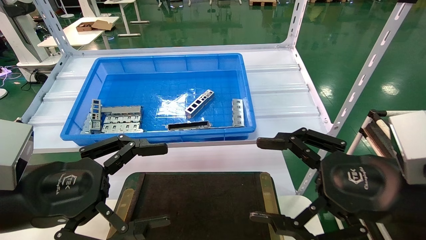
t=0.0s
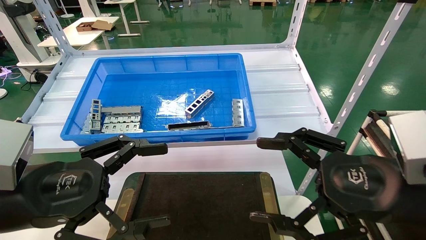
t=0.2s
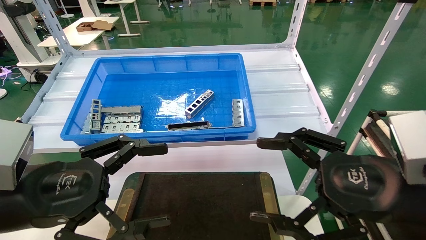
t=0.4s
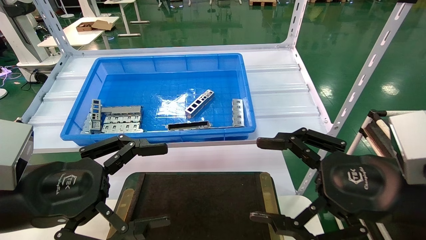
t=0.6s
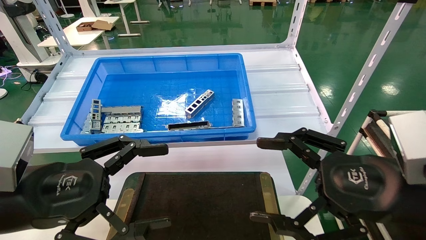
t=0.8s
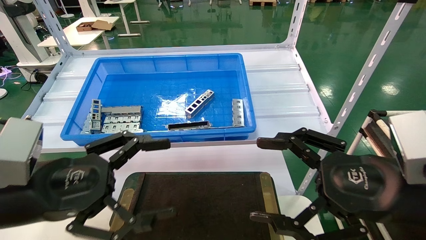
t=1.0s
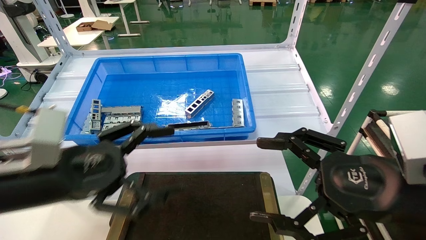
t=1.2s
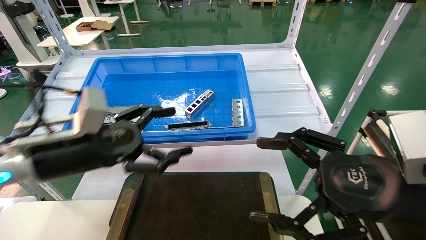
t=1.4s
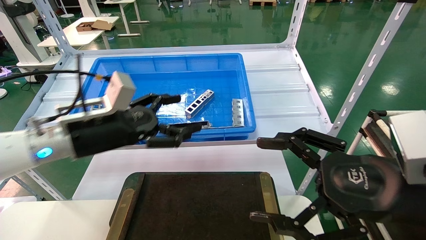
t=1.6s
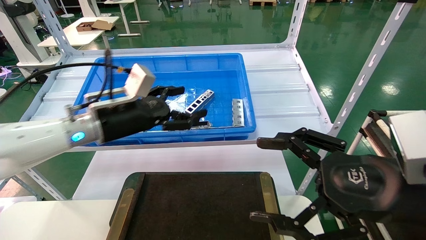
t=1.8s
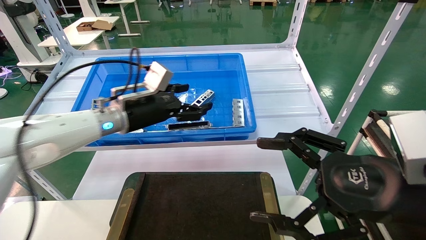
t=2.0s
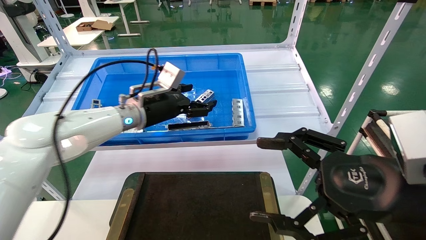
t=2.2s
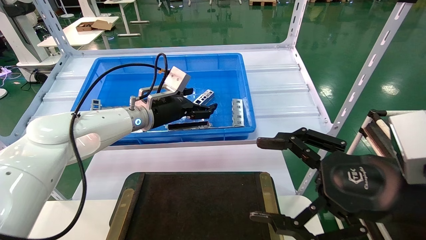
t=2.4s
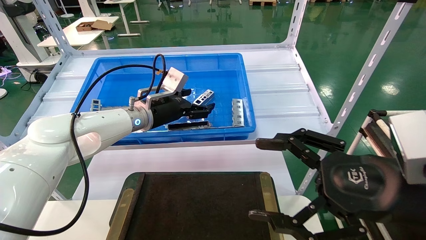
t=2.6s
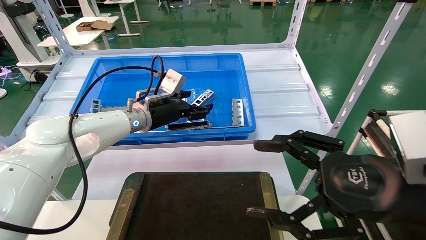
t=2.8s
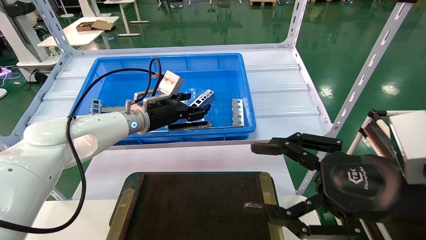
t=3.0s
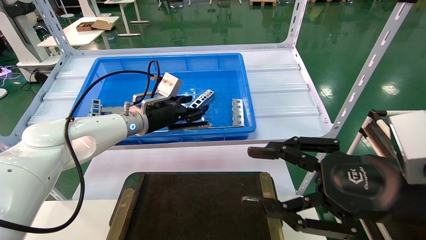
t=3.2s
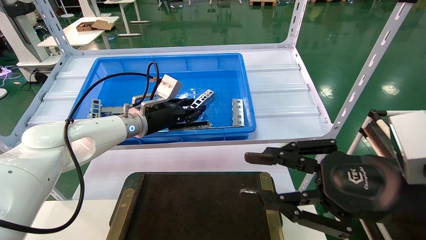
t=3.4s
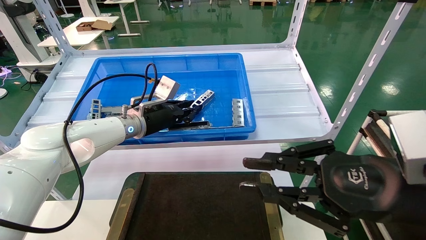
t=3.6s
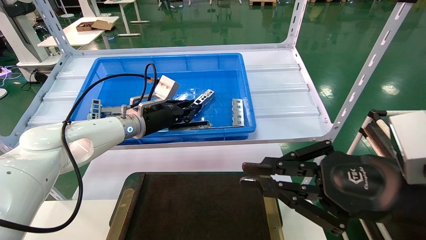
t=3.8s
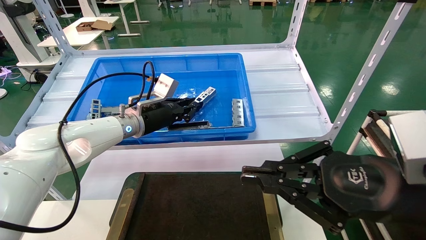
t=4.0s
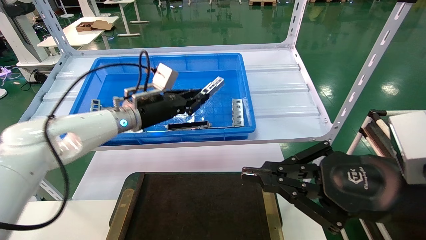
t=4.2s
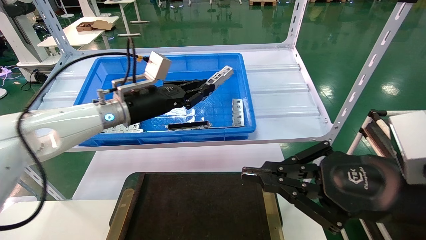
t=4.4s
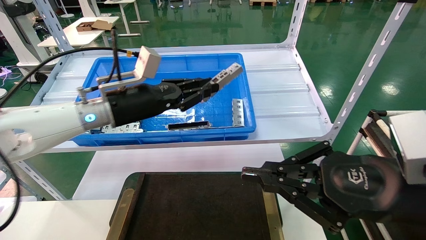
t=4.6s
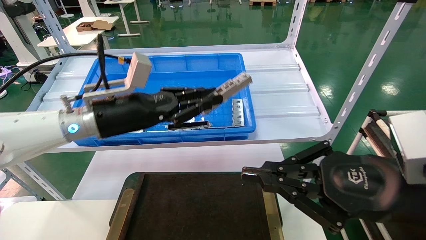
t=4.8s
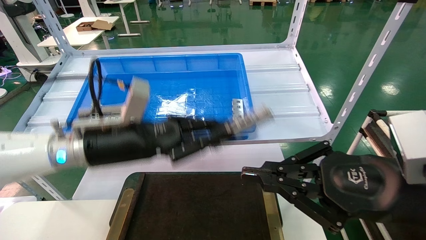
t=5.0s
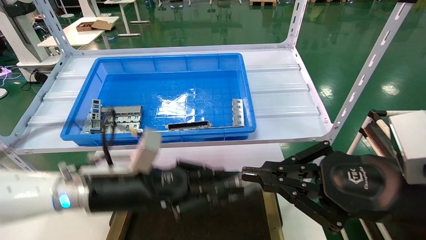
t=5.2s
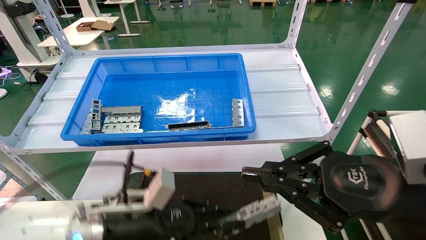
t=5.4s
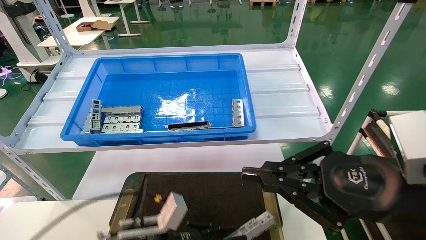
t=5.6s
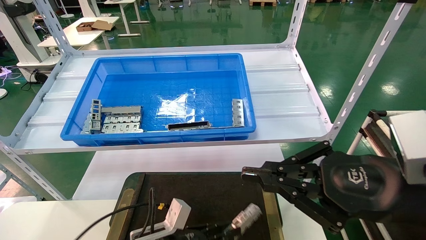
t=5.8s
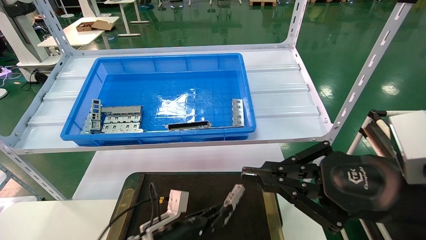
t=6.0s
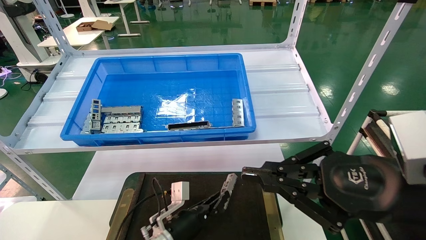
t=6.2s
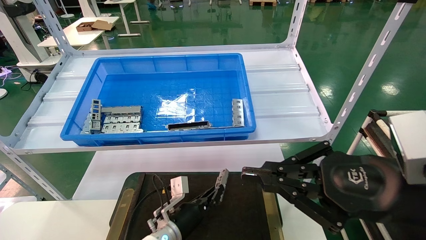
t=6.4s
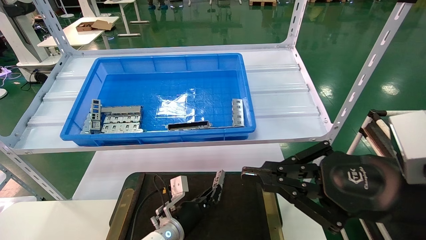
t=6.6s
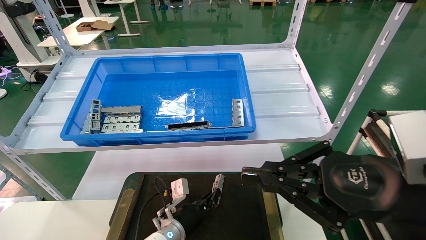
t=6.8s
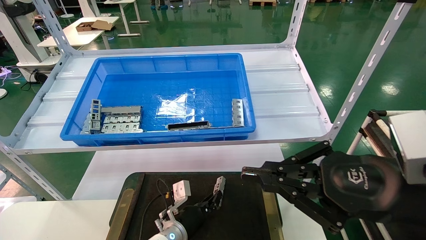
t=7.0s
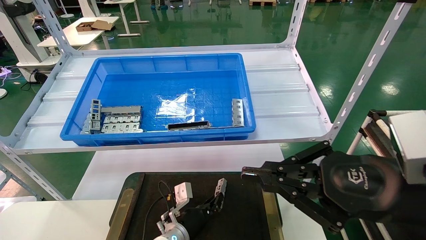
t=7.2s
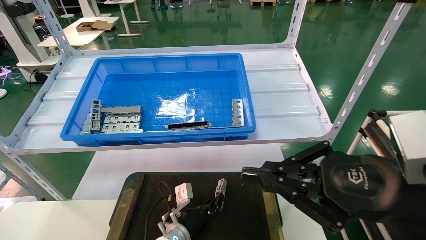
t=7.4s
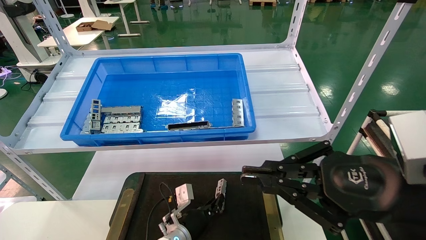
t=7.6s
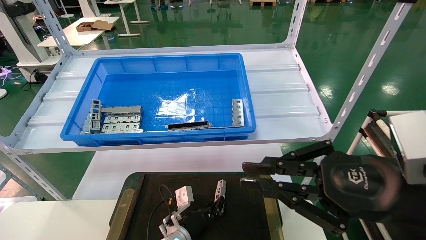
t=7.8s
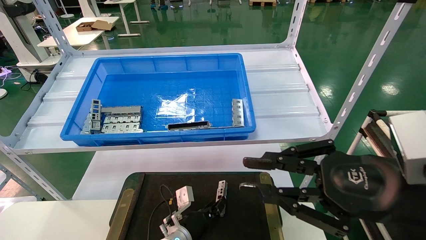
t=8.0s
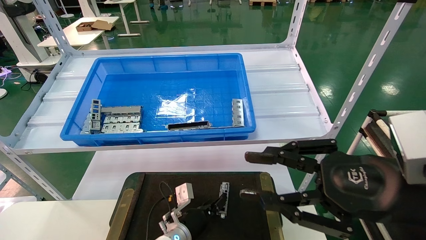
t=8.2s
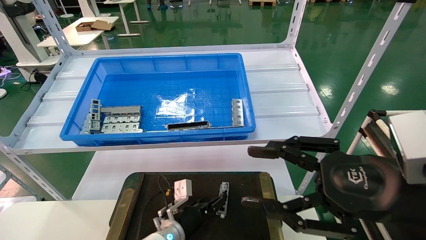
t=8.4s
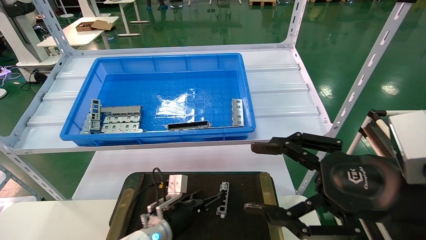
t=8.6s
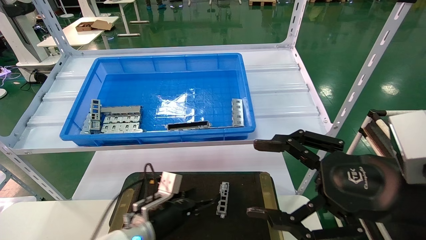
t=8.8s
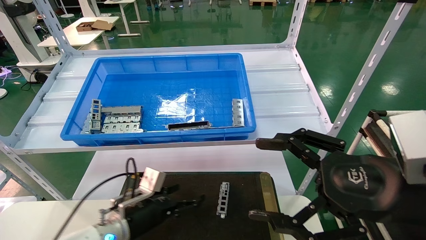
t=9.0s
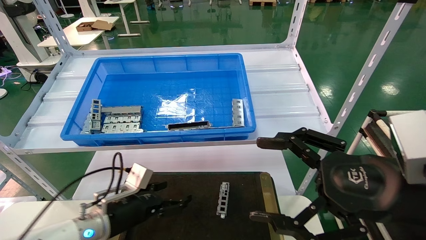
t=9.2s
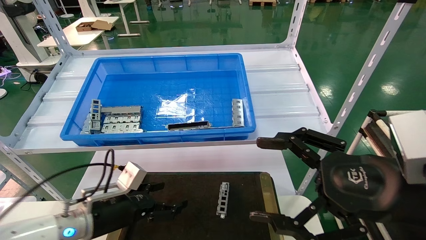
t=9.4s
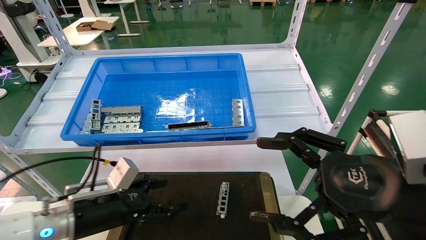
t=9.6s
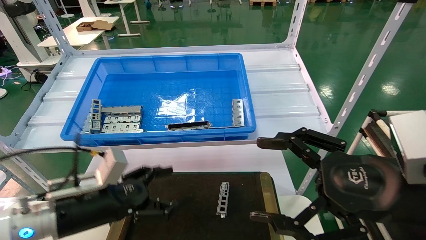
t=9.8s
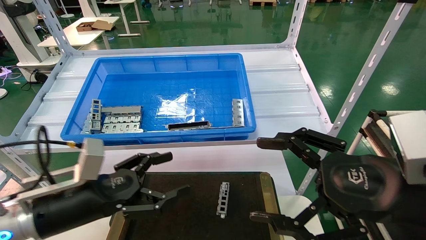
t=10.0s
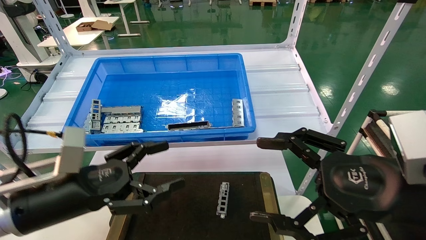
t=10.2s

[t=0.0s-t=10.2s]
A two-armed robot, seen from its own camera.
Task of the whole recording: Grasp the part with one hand and place it on the black container.
Step, t=1.2s to t=3.6s: Pick up the front USB bracket from the feeding area.
Step, t=3.8s to t=7.8s: Place the front USB bracket into the box.
t=0.0s to t=1.4s: The left gripper travels forward by about 10 cm.
t=1.4s to t=3.0s: The left gripper heads forward, covering some 20 cm.
t=3.0s to t=4.4s: The right gripper closes. Meanwhile the left gripper shifts about 5 cm backward, and closes.
t=4.4s to t=5.8s: The left gripper travels downward and backward by approximately 30 cm.
t=5.8s to t=7.2s: The left gripper goes approximately 15 cm forward, downward and to the right.
t=7.2s to t=8.8s: The right gripper opens up. Meanwhile the left gripper moves to the left and upward, about 10 cm, and opens.
t=8.8s to t=10.2s: The left gripper moves upward, backward and to the left, some 20 cm.

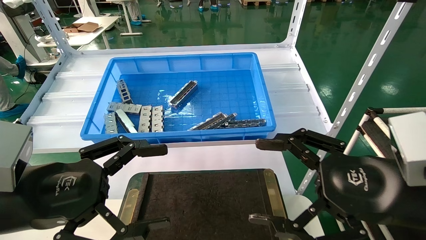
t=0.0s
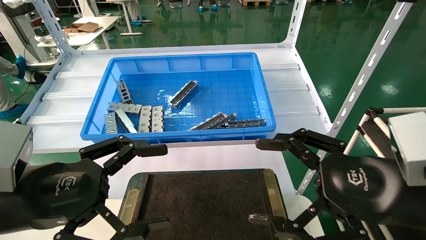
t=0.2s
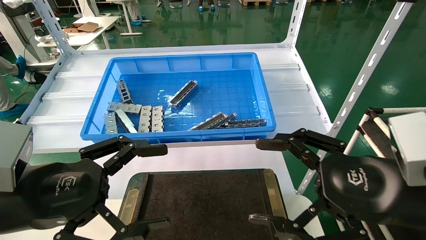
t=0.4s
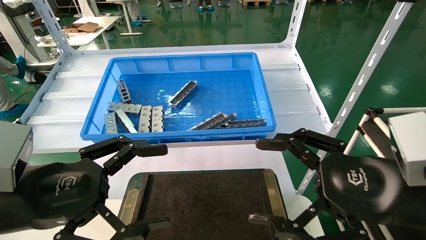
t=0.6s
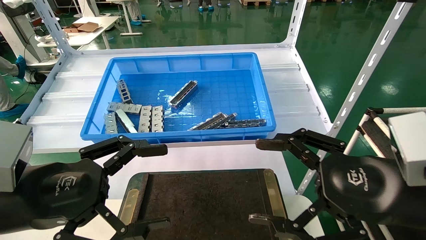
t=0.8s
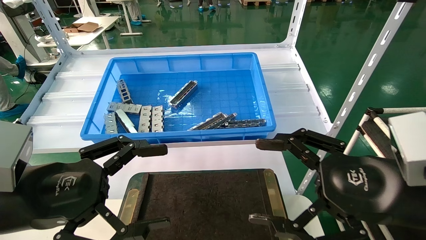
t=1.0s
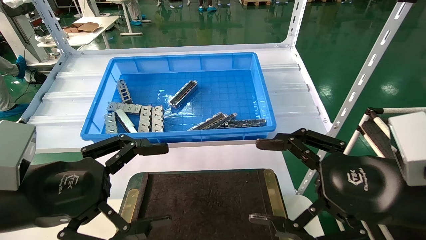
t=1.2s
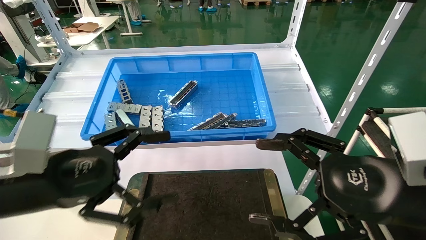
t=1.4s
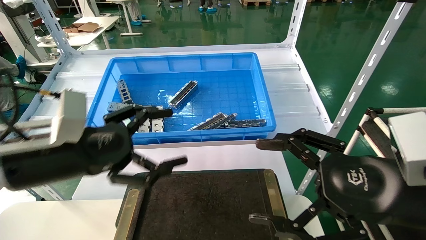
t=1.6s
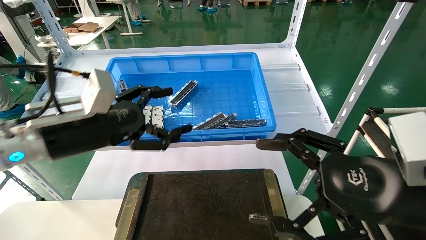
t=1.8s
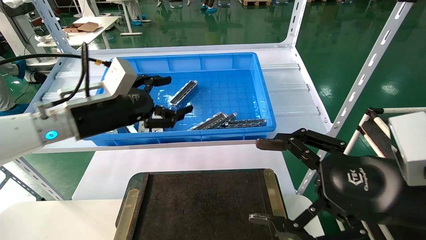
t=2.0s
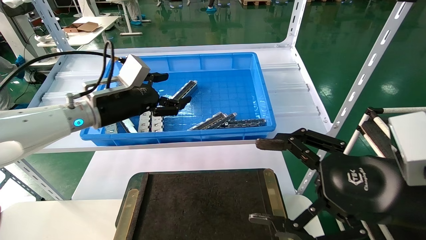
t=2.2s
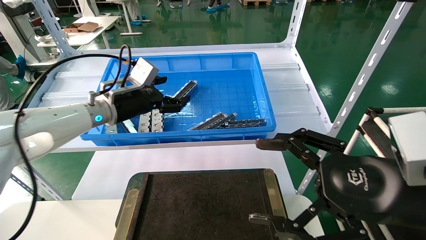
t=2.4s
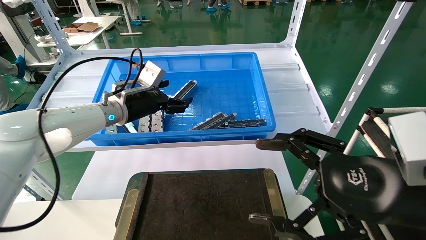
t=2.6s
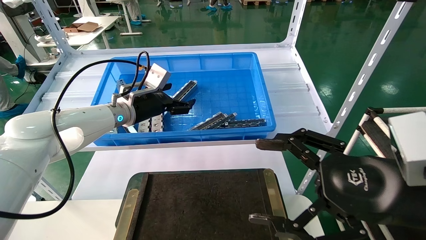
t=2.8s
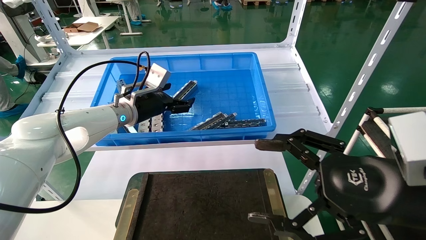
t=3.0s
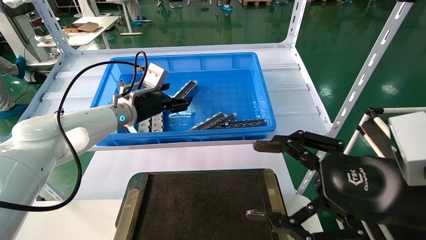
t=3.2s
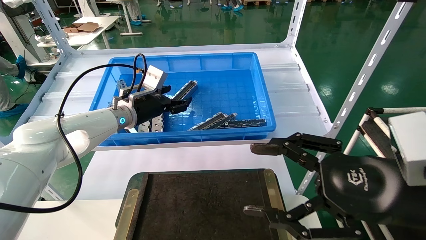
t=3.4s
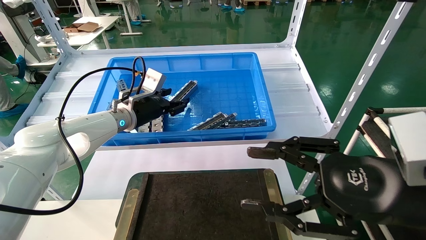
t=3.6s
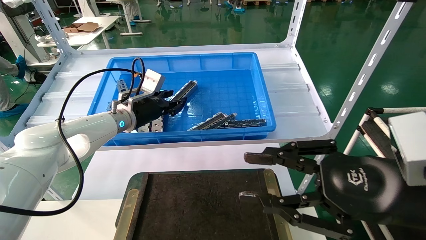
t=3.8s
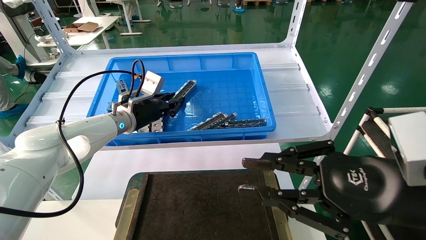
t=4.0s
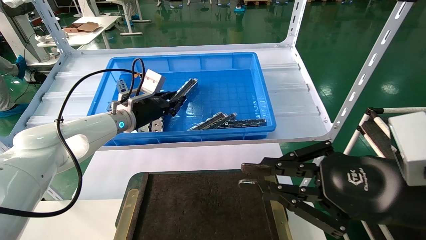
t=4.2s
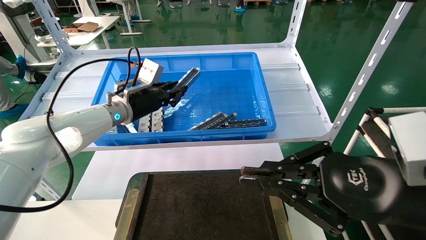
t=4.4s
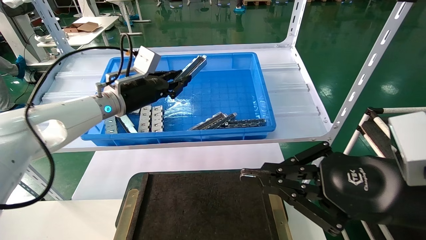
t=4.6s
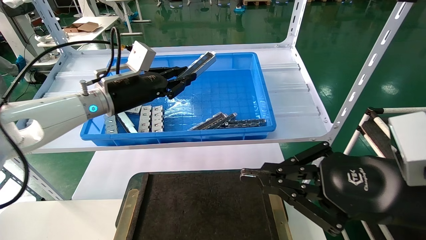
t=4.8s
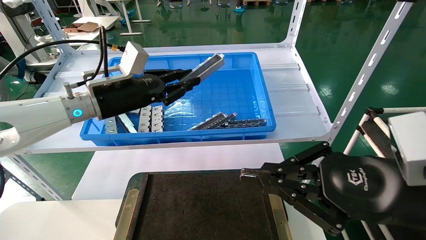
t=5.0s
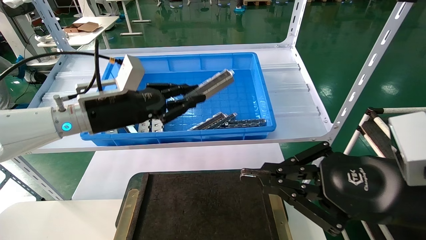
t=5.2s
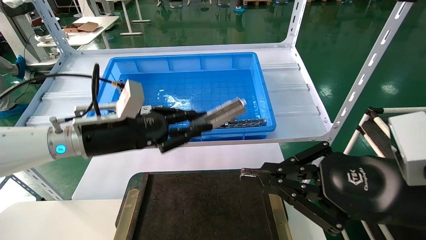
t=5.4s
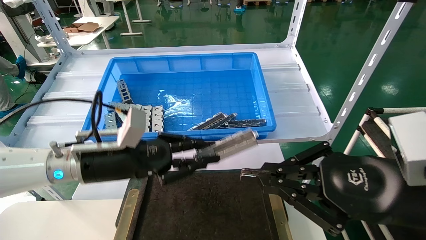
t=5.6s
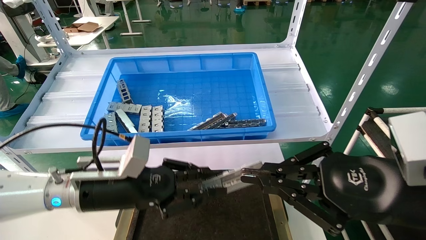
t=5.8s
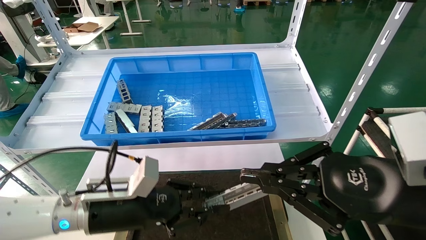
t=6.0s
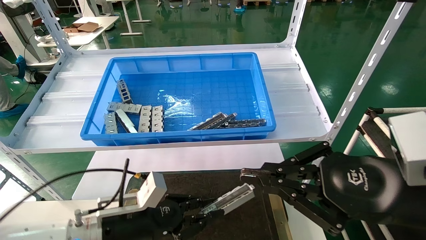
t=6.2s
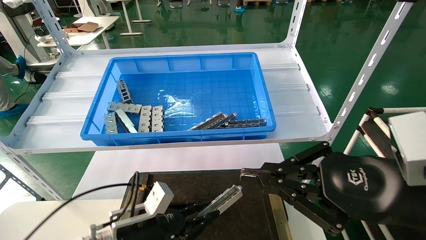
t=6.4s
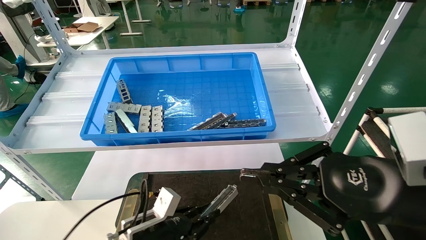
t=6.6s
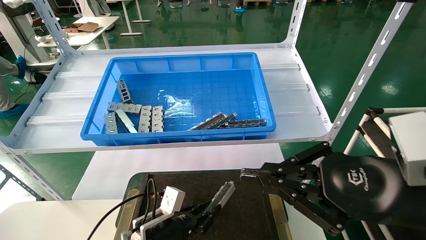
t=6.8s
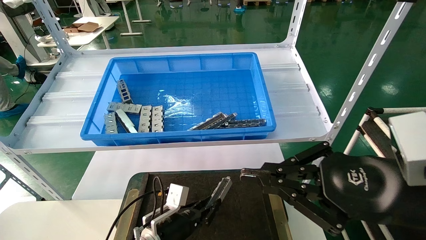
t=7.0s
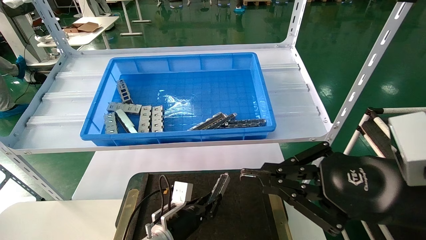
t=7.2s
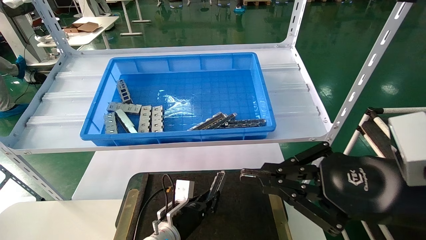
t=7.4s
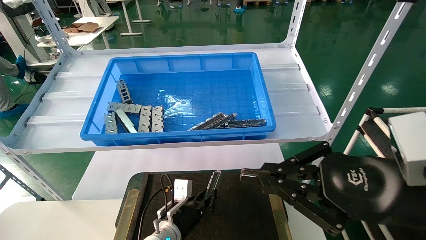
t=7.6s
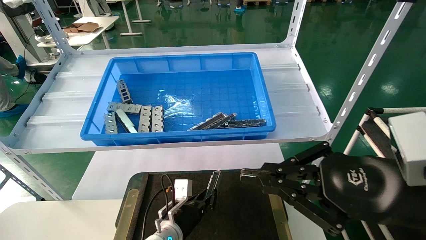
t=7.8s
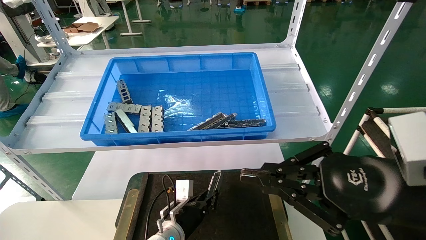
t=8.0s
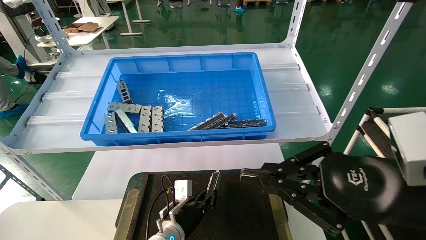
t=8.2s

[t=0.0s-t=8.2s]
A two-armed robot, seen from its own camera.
Task of the whole recording: Grasp the part with one hand and place it on the black container.
Step, t=1.6s to t=4.6s: Pick up the front USB bracket from the feeding area.
t=0.0s to t=1.6s: The left gripper shifts approximately 5 cm forward.
t=1.6s to t=3.2s: The left gripper is displaced forward by about 25 cm.
t=3.2s to t=5.0s: The left gripper moves backward, approximately 10 cm, and closes up. Meanwhile the right gripper closes.
t=5.0s to t=6.6s: The left gripper goes approximately 30 cm downward.
t=6.6s to t=8.2s: The left gripper is displaced forward, to the right and downward by about 15 cm.
